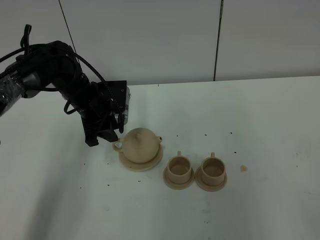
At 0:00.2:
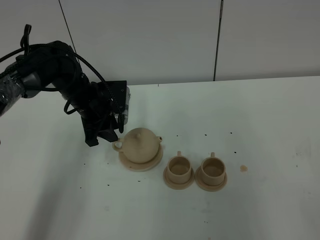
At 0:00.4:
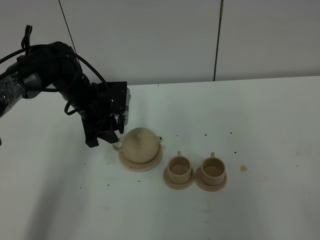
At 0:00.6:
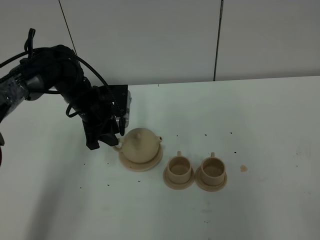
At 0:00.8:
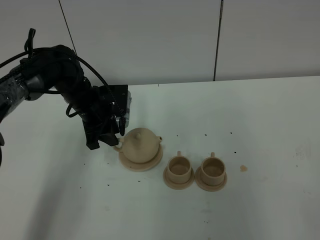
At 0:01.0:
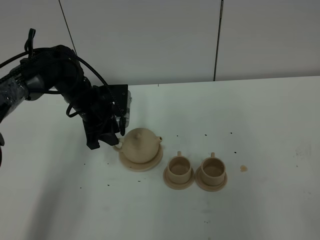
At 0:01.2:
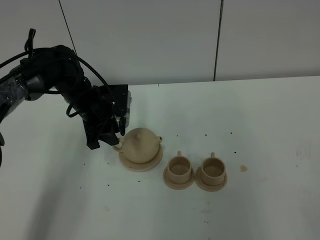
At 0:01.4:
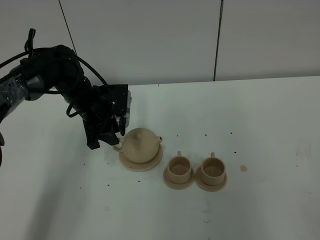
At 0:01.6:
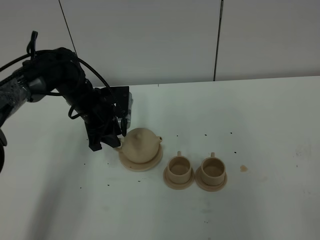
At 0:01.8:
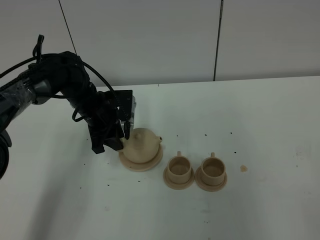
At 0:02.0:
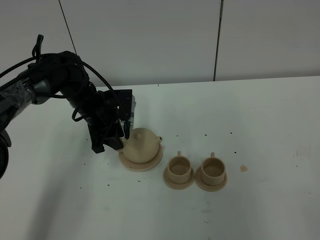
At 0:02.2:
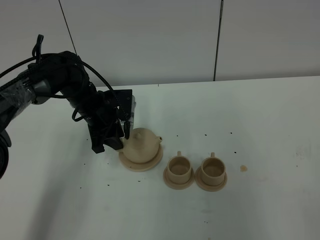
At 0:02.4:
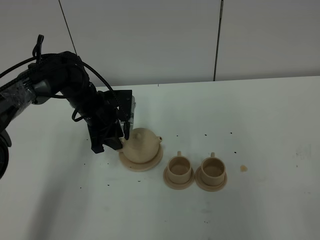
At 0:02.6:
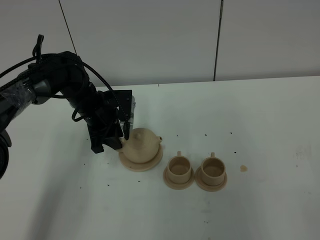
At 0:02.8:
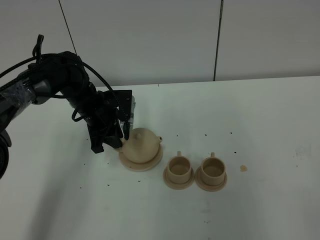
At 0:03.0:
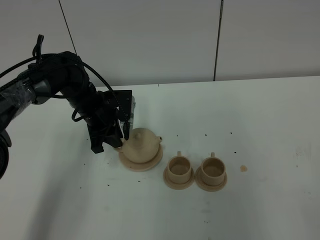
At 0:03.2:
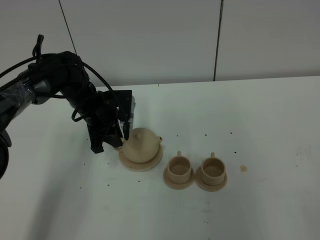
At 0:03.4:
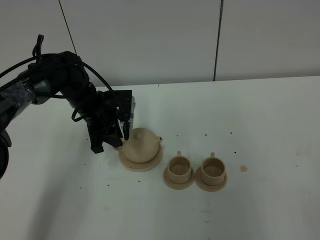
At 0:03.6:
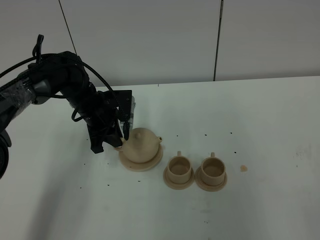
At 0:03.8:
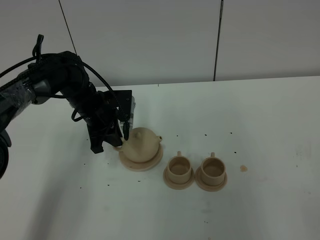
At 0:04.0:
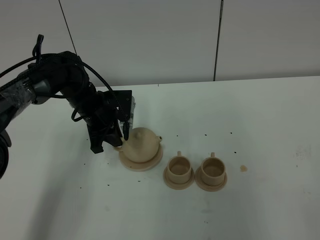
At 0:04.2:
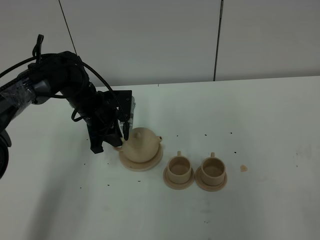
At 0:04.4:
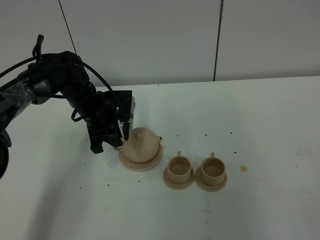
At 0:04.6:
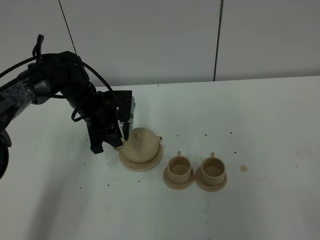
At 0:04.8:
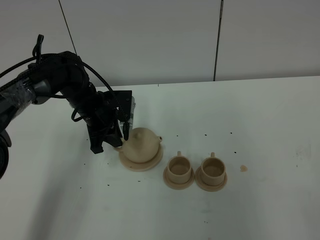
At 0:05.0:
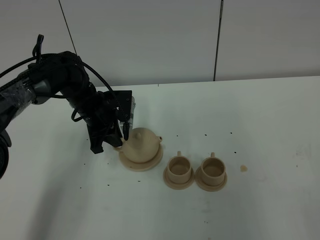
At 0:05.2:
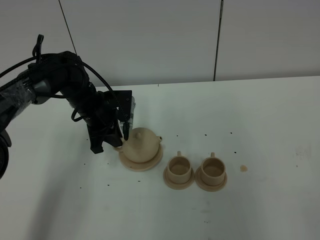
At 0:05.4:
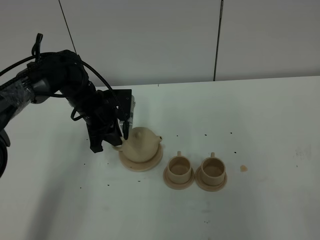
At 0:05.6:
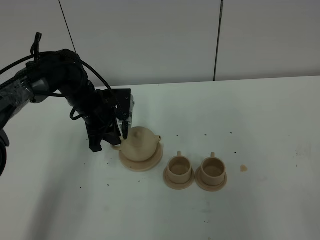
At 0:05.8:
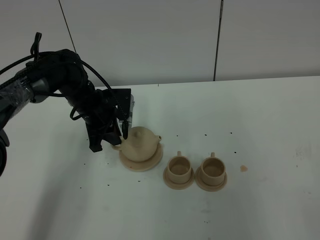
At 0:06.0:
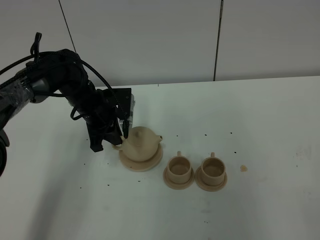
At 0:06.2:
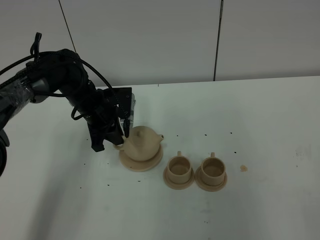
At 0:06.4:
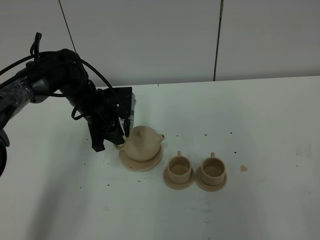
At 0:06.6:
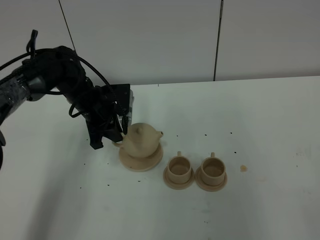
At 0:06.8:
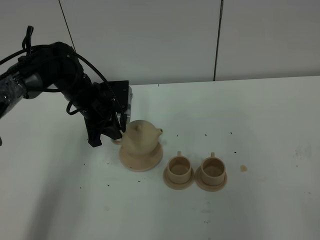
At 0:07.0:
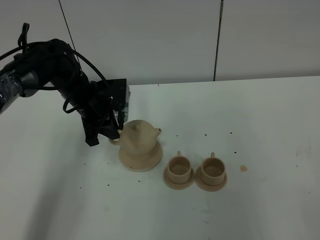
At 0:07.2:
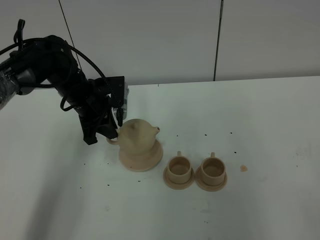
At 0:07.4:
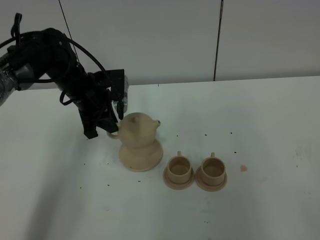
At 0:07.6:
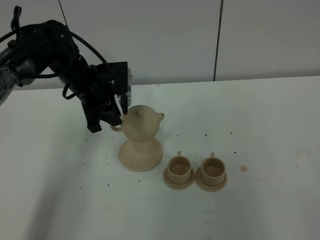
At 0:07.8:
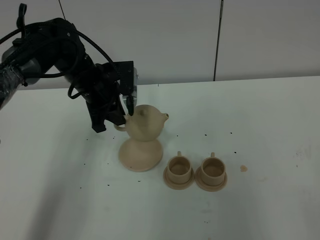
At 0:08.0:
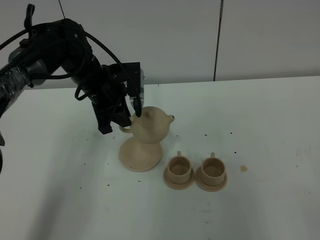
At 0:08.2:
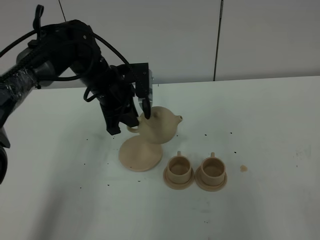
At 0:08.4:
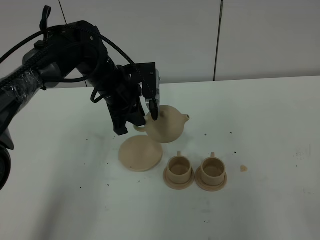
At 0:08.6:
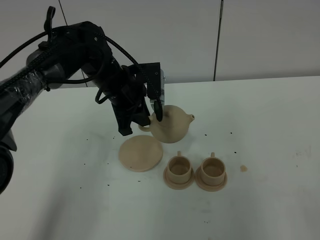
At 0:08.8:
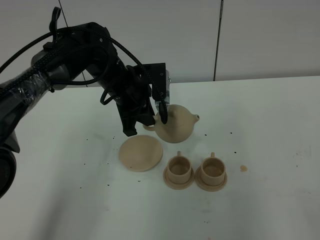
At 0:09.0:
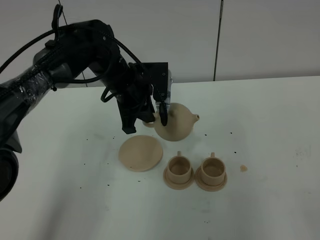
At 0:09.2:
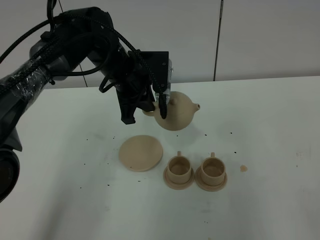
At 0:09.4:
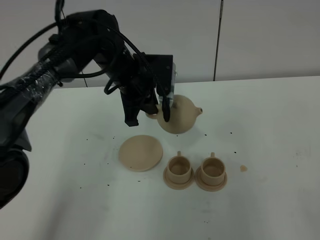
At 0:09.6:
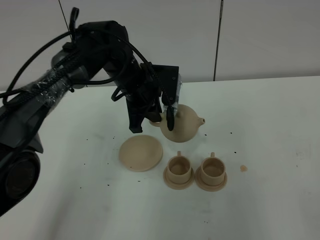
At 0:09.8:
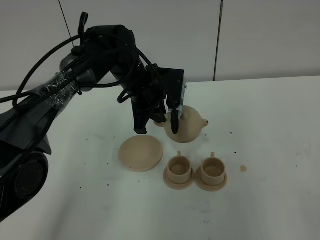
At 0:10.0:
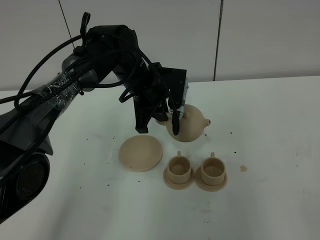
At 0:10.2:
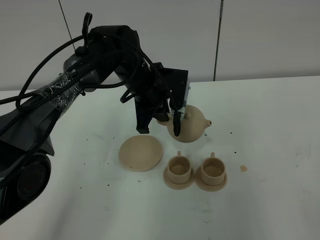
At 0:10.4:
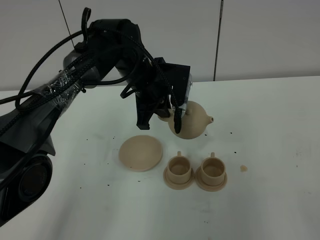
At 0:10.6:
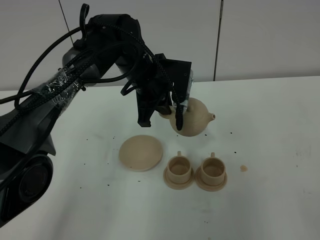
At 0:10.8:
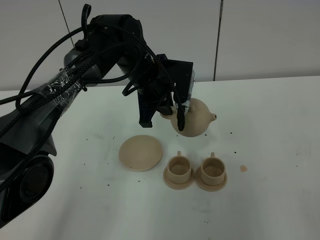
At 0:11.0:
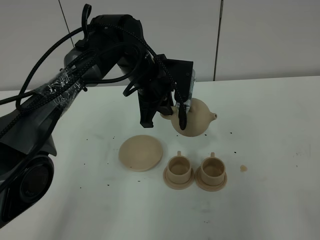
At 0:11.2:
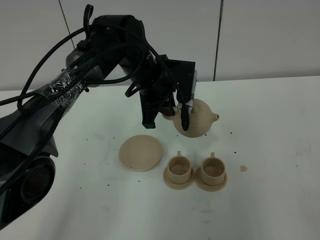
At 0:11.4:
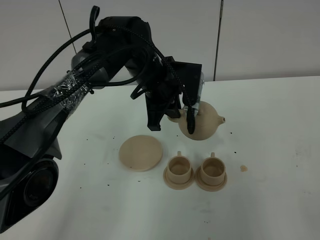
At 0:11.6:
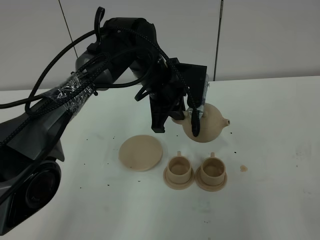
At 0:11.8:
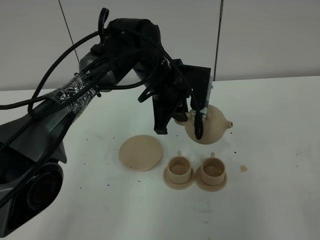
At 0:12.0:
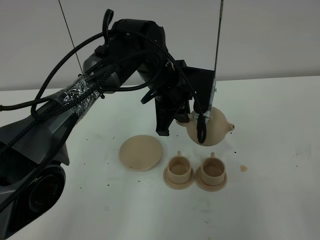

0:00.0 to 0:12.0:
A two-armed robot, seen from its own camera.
Task of the whole recording: grasp the brown teapot and pour the tea into the two brown teacups one by one, put the brown teapot back in its original place.
Step, 0:00.0 to 0:07.0: Pick up the teapot with the left gripper.
0:00.0 to 0:01.6: There are only small adjustments of the grippers.
0:01.6 to 0:03.0: The left gripper closes its fingers.
0:03.0 to 0:06.0: Both grippers stay put.
0:06.0 to 0:07.6: The left gripper travels upward by roughly 5 cm.
0:07.6 to 0:09.0: The left gripper is displaced to the right by about 10 cm.
0:09.0 to 0:10.4: There are only small adjustments of the grippers.
0:10.4 to 0:12.0: The left gripper changes place by some 5 cm.

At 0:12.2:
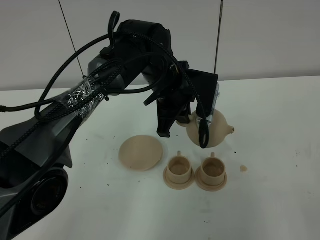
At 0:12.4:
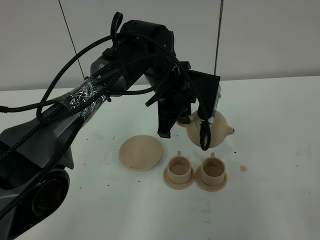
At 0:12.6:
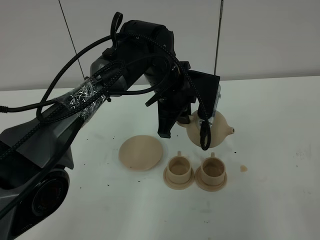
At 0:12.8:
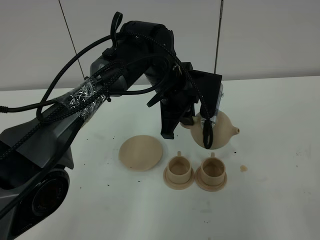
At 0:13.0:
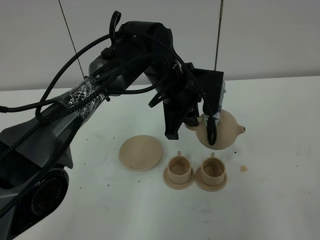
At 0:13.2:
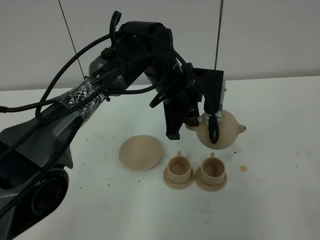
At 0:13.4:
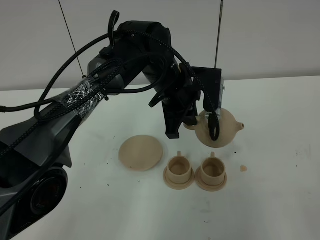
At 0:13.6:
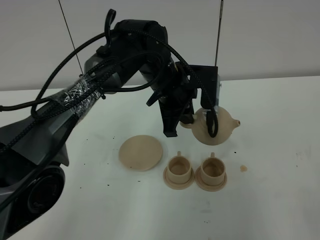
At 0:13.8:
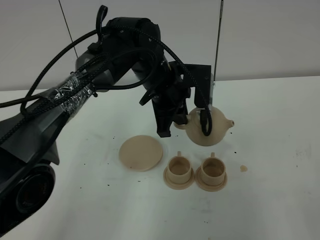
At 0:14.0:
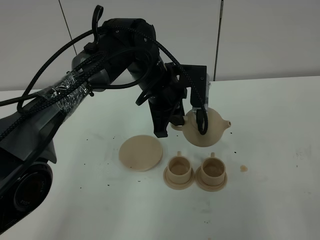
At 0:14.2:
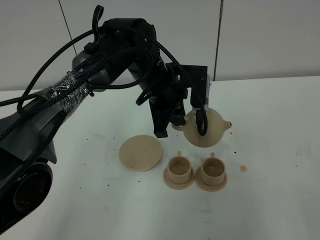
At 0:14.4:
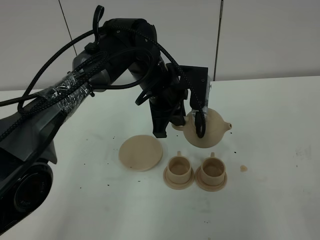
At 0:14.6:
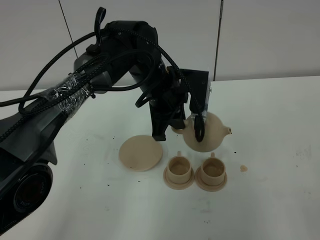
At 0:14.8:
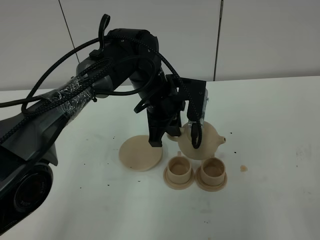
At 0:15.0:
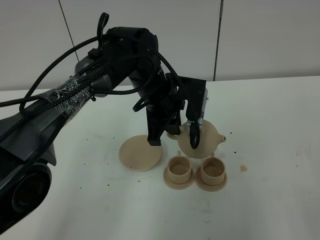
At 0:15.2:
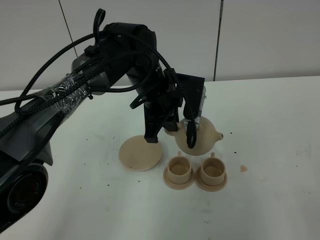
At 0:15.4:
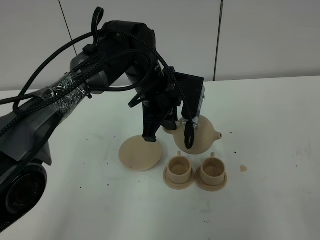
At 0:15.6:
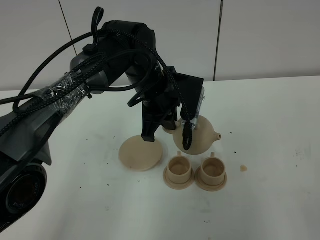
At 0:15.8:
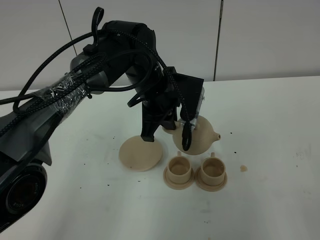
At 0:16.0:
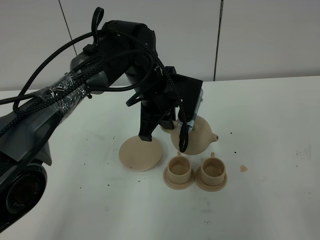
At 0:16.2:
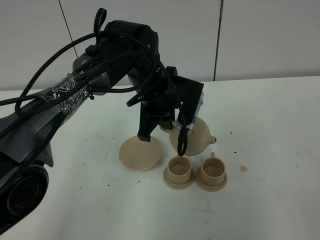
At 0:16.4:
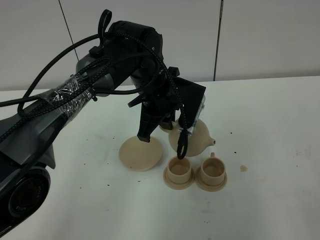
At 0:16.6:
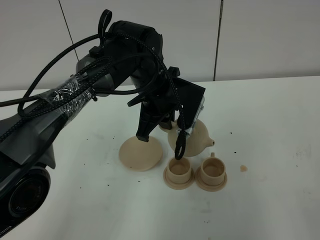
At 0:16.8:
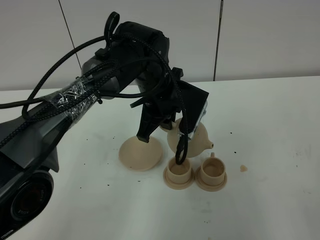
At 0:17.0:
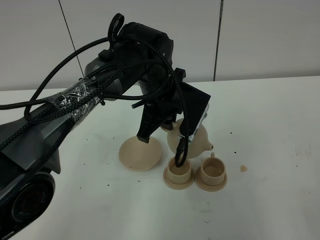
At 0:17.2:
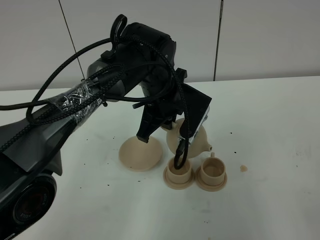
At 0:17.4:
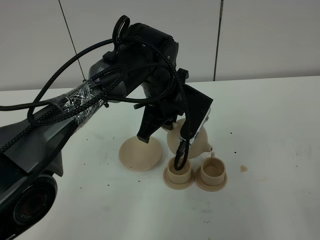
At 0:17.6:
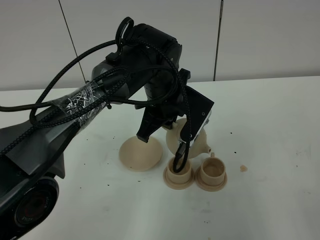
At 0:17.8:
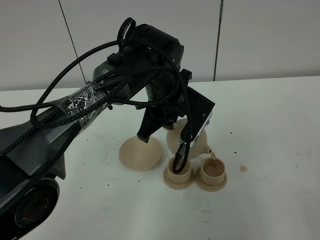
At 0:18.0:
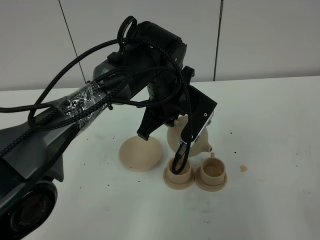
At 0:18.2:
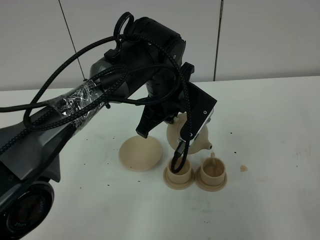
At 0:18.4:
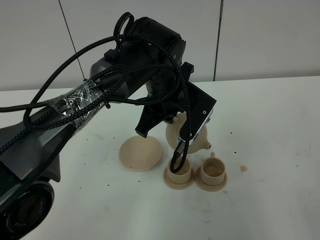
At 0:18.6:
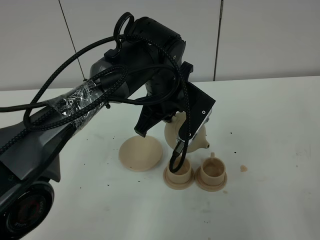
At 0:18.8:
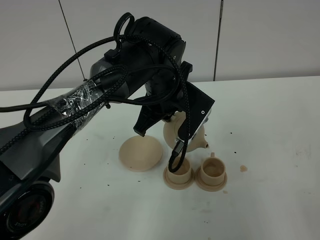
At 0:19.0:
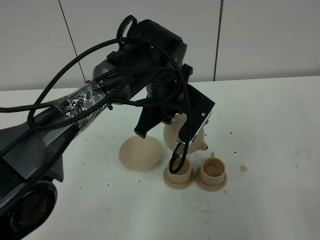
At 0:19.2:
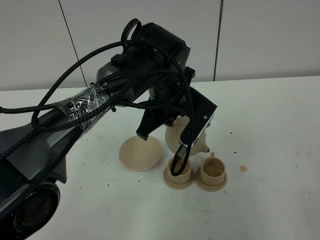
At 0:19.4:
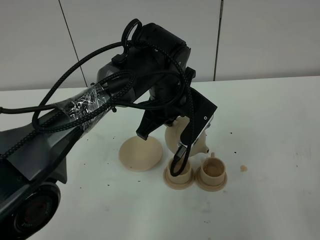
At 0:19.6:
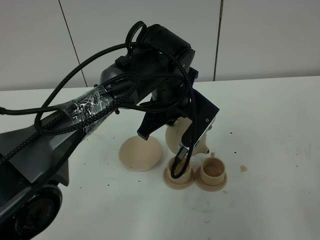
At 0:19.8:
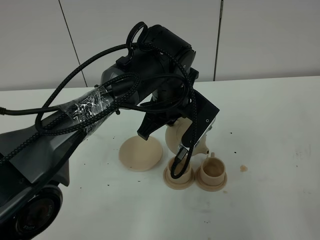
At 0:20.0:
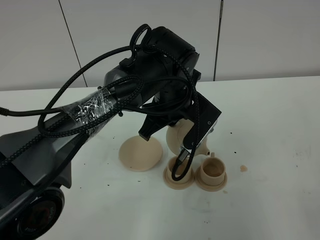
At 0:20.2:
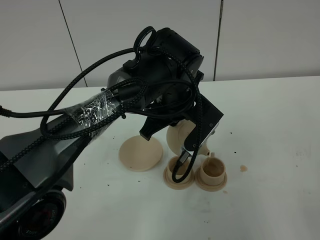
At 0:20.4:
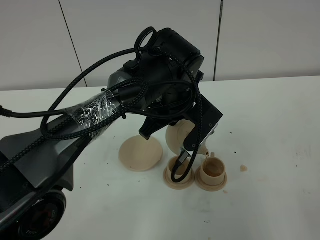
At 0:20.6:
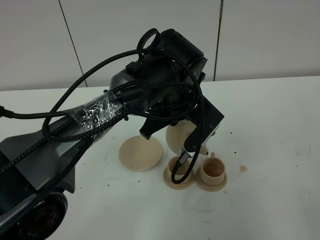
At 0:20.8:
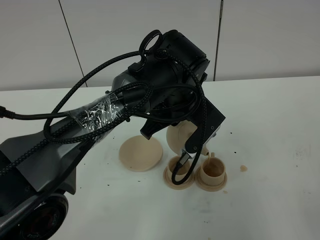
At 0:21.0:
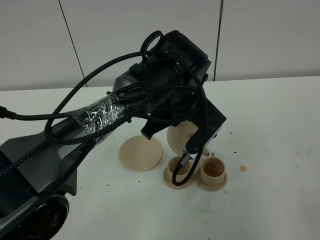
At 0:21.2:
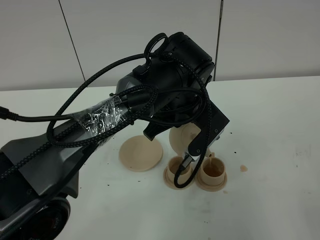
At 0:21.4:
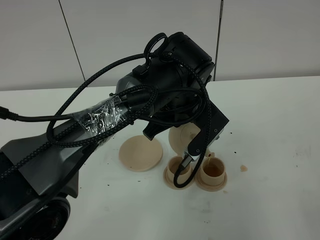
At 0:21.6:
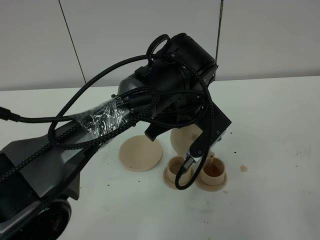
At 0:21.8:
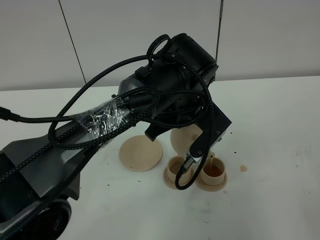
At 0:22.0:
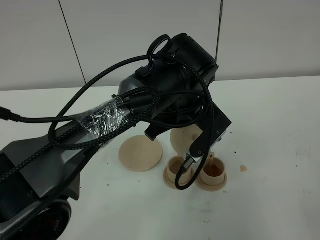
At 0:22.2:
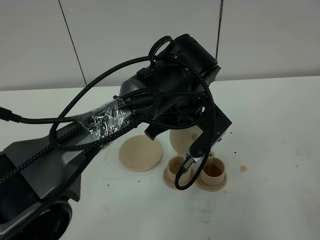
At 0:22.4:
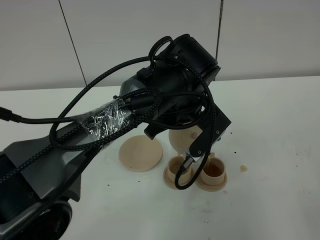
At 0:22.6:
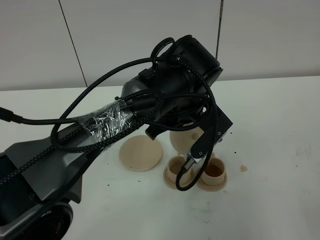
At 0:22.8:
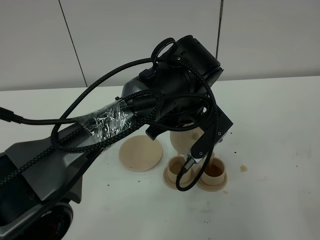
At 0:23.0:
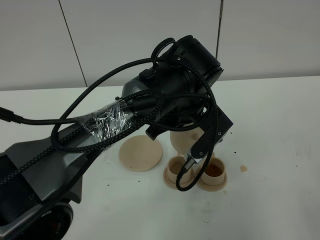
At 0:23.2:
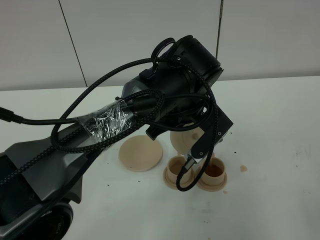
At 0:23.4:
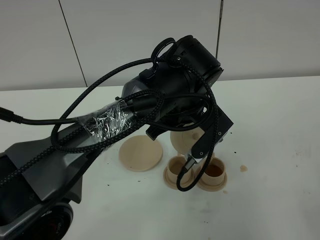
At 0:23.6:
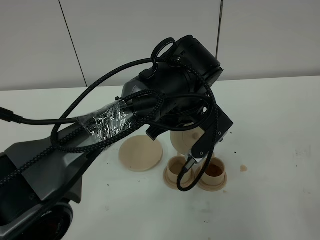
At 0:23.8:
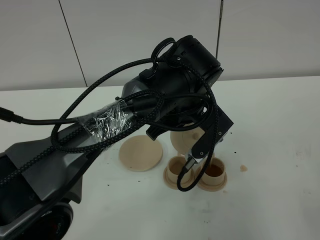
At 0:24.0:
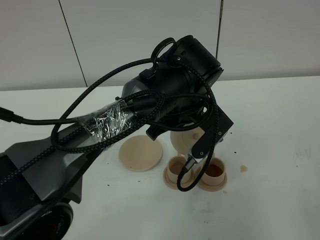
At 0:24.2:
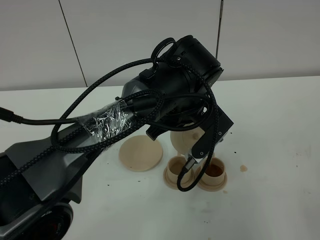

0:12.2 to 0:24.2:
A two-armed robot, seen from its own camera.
Task of the whole recording: grasp the brown teapot and pour the tea into the two brown teacups one by one, put the brown teapot back in its original place.
0:12.2 to 0:16.6: The grippers stay close to where they were, moving slightly.
0:16.6 to 0:18.2: The grippers make only small movements.
0:18.2 to 0:21.2: The grippers stay close to where they were, moving slightly.
0:21.2 to 0:24.2: Both grippers stay about where they are.
